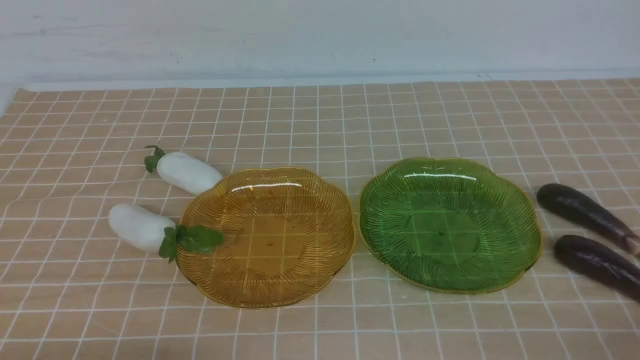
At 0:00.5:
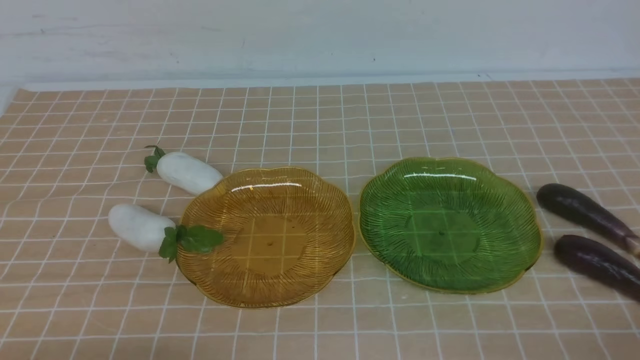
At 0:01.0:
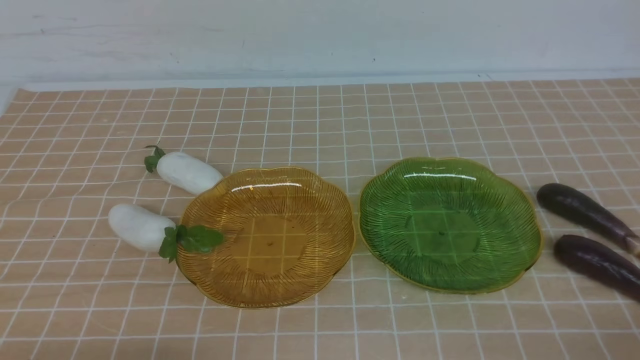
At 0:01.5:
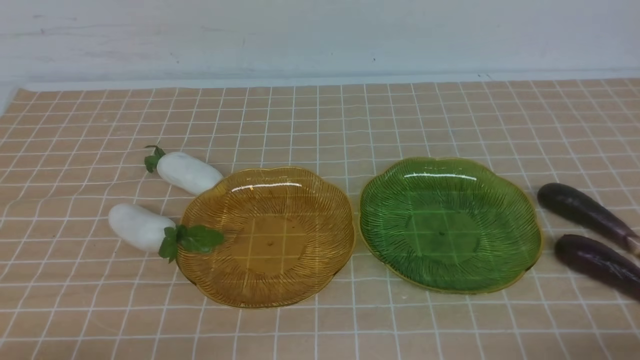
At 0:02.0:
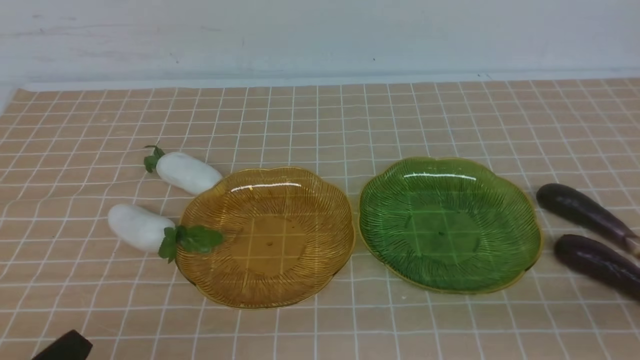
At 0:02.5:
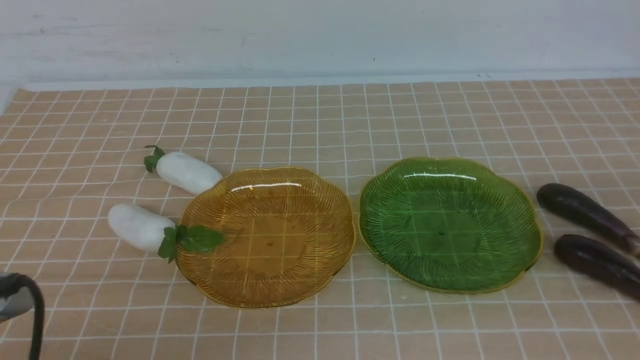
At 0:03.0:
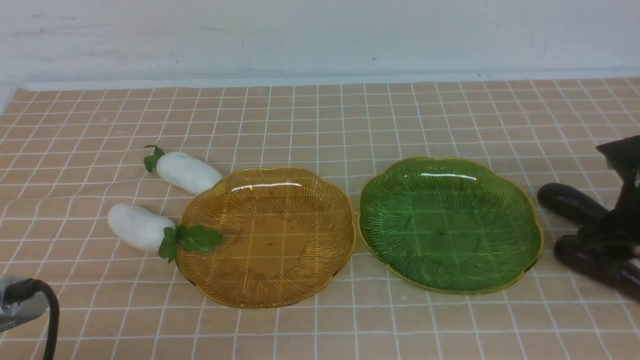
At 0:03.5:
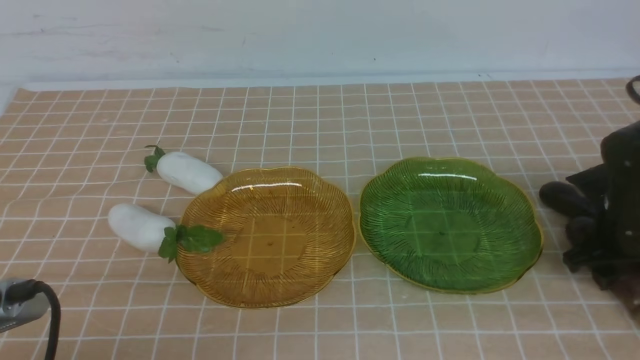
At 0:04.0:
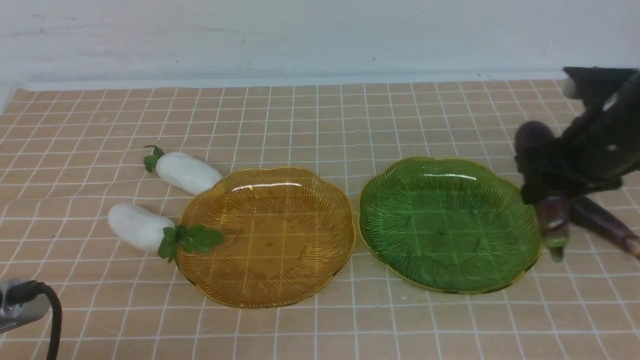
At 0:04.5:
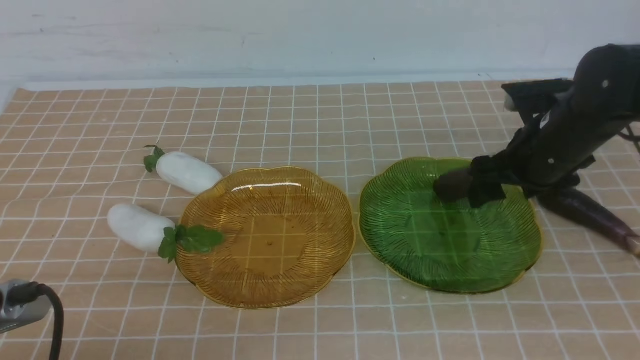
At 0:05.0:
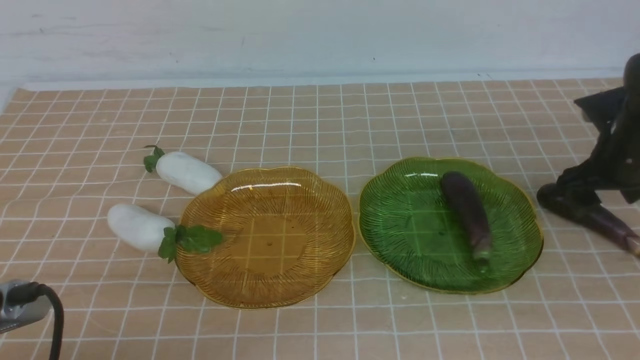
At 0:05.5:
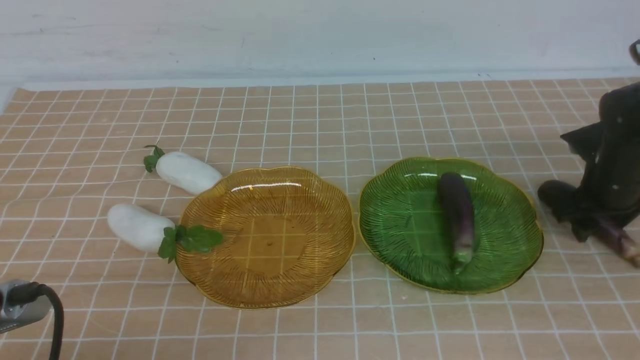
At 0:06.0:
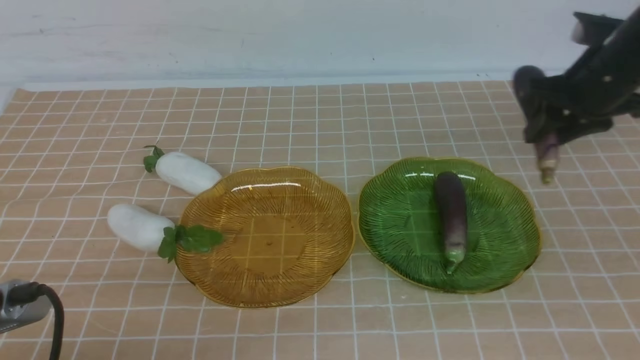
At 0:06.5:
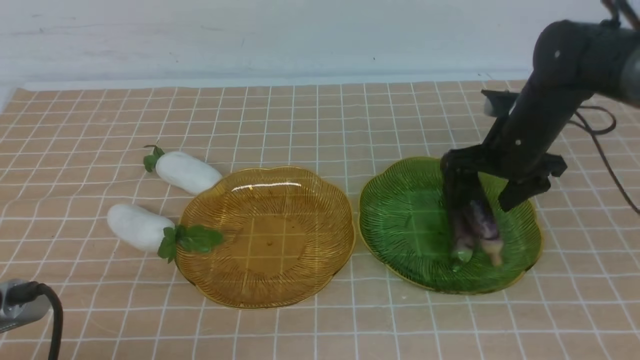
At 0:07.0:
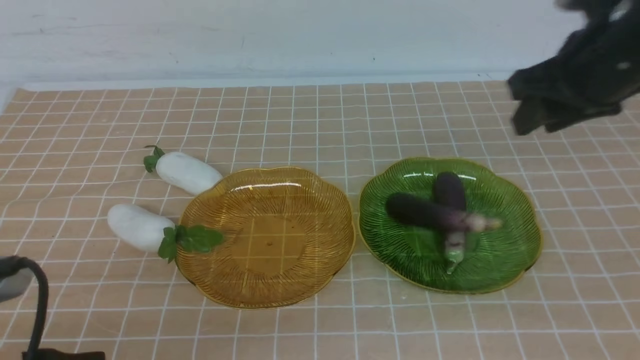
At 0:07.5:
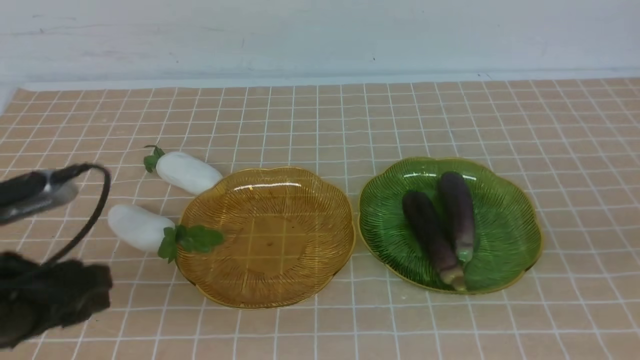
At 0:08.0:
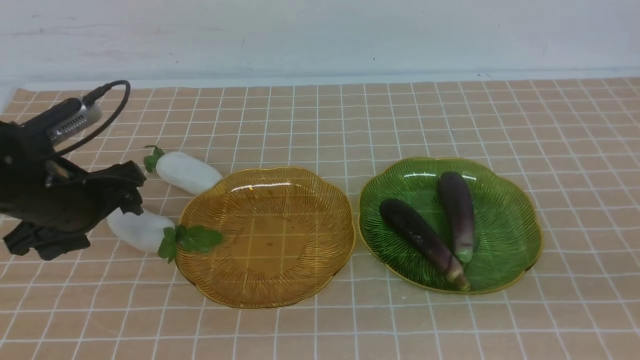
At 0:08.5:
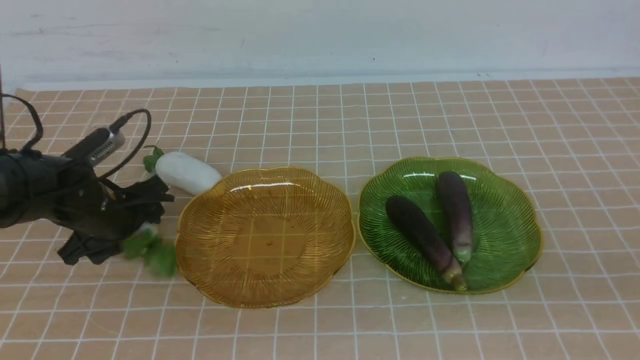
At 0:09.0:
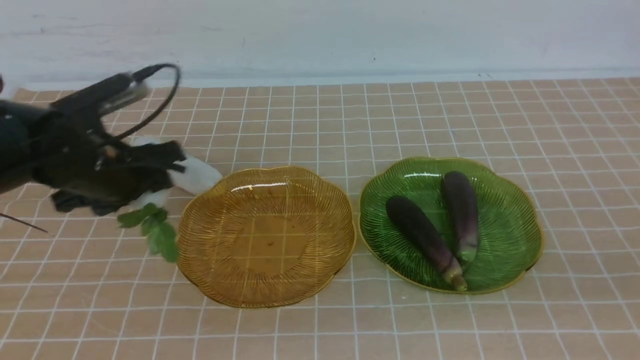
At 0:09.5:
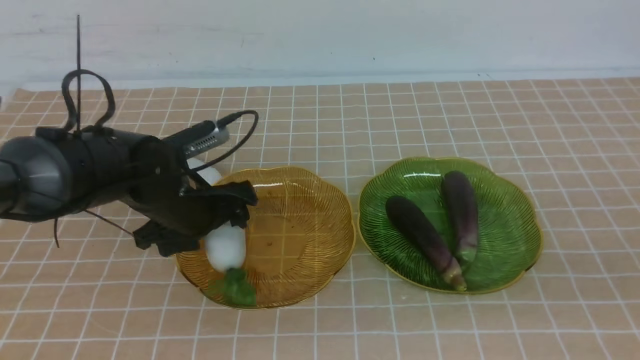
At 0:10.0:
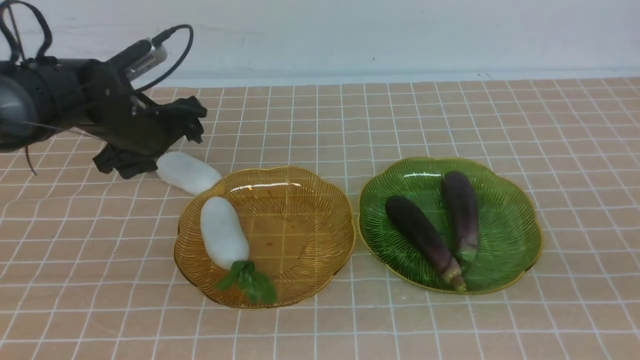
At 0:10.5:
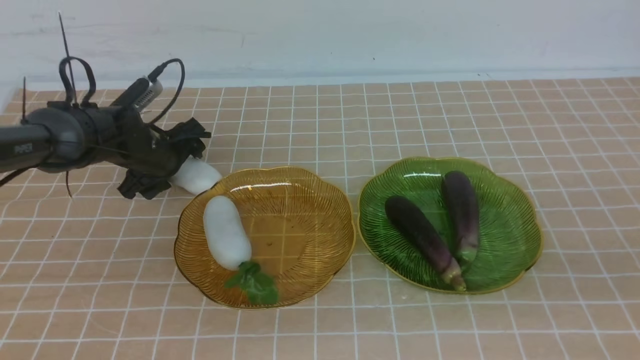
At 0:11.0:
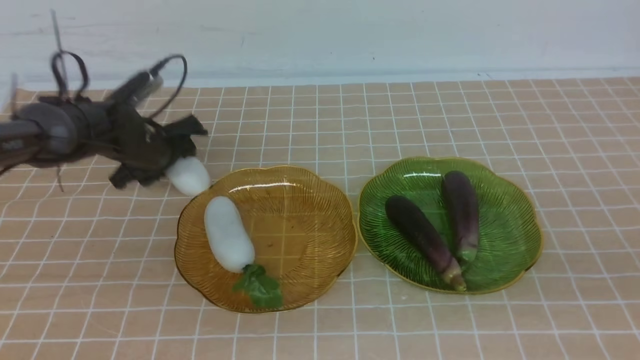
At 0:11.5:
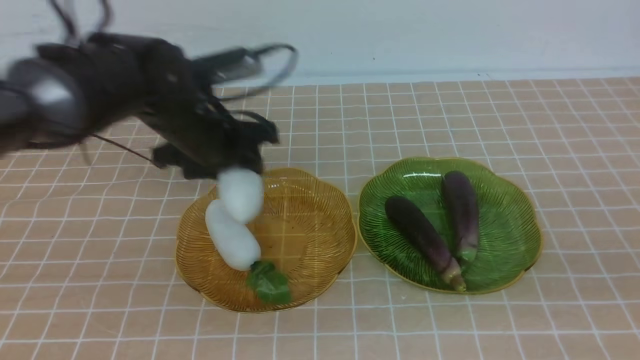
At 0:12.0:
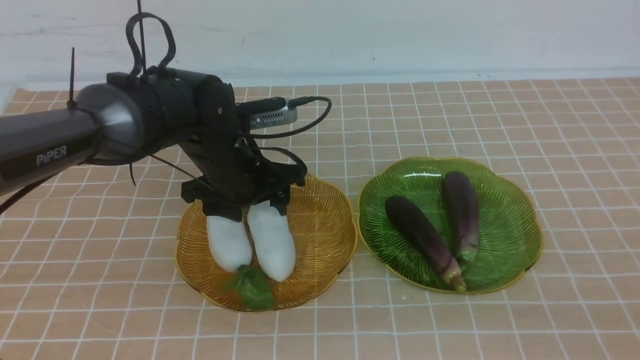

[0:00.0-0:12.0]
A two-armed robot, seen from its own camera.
Step, 0:00.0 to 0:04.5: use the right arm to grab an eggplant and put it into the right plate.
Step, 0:05.5 to 0:06.5: use the right arm to grab an eggplant and put it into the right plate.
0:02.0 to 0:04.0: The right gripper is displaced forward by about 25 cm, and opens. The left gripper opens.
0:04.0 to 0:06.0: The right gripper is displaced forward by roughly 5 cm, goes to the right and returns, about 5 cm each way, and opens, then closes once more.
0:06.0 to 0:08.0: The right gripper travels backward by about 35 cm, and closes its fingers. Meanwhile the left gripper moves forward, approximately 25 cm, and opens its fingers.
0:08.0 to 0:10.0: The left gripper moves forward, roughly 15 cm.
0:10.0 to 0:12.0: The right gripper goes approximately 10 cm downward and backward. Meanwhile the left gripper heads to the right, upward and backward, covering roughly 20 cm, and closes its fingers.

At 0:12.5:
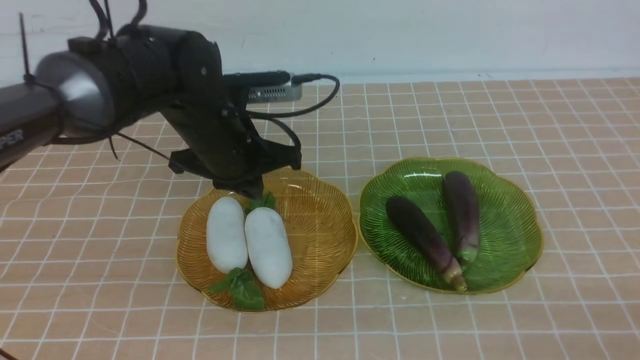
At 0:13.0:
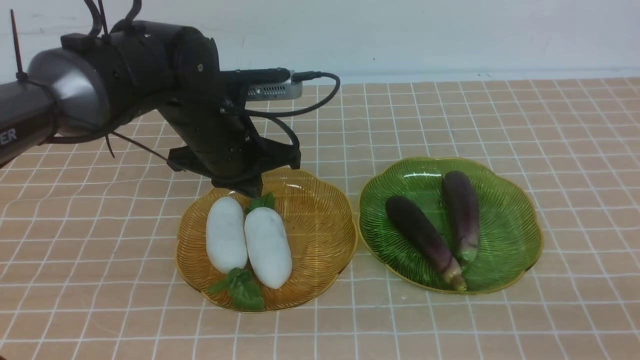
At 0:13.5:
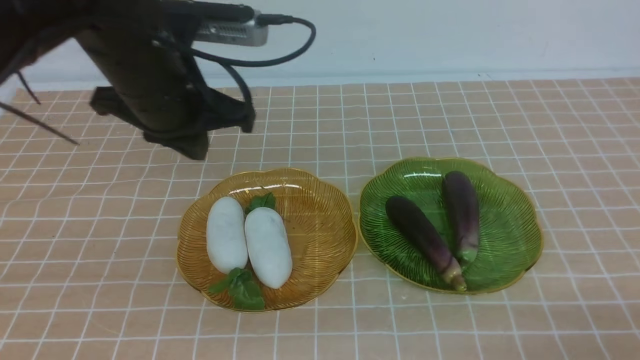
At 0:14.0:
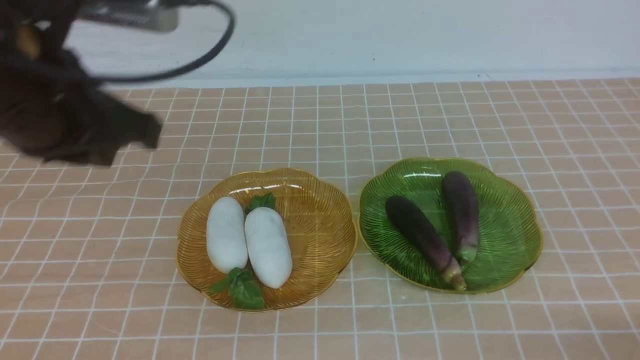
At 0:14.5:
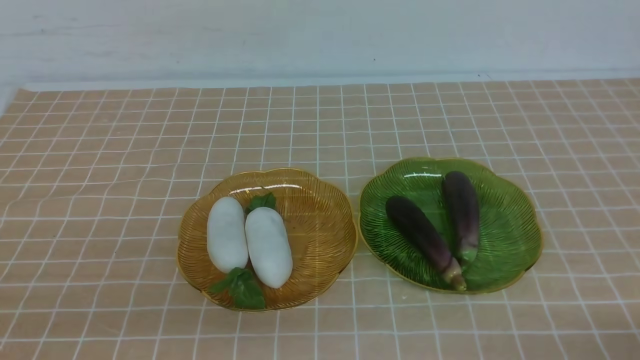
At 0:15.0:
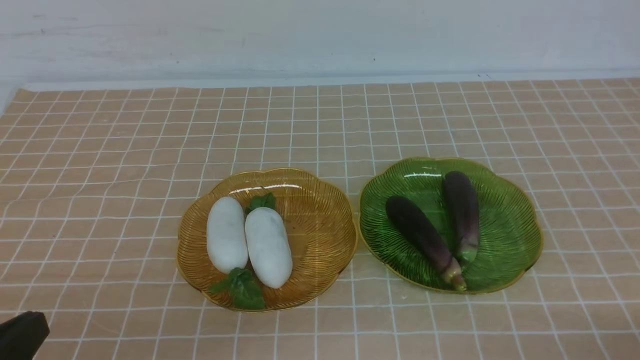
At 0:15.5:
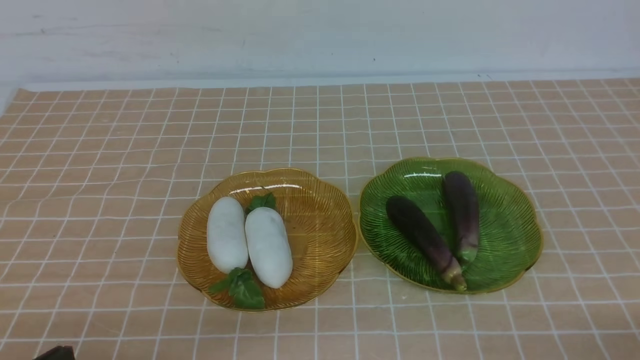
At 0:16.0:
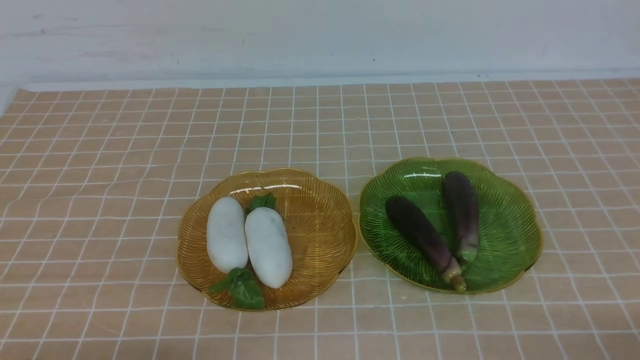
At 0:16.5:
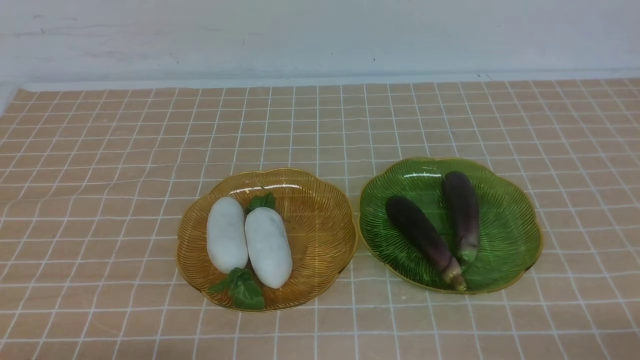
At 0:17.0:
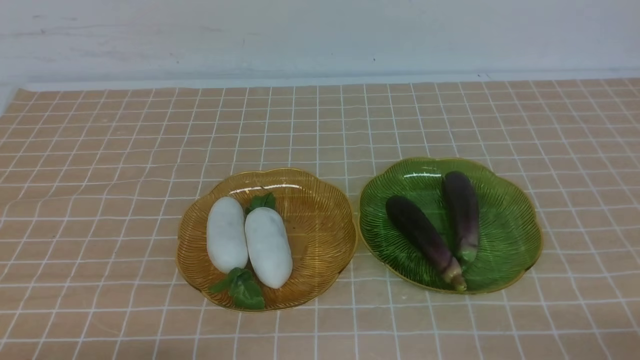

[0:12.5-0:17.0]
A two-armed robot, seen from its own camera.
0:12.5 to 0:14.5: The left gripper shifts about 30 cm backward and to the left. The right gripper goes some 5 cm downward.
